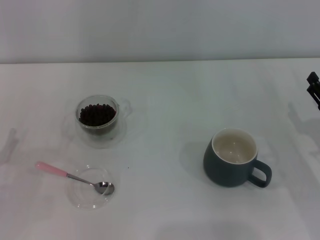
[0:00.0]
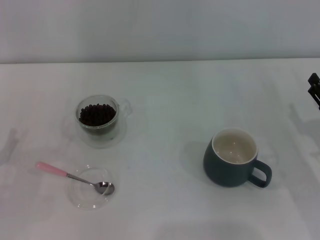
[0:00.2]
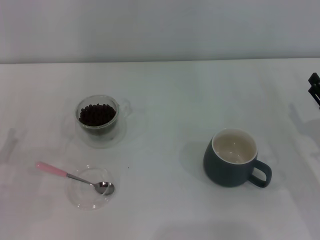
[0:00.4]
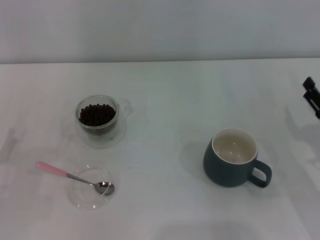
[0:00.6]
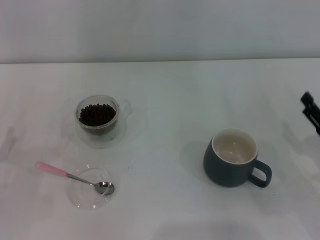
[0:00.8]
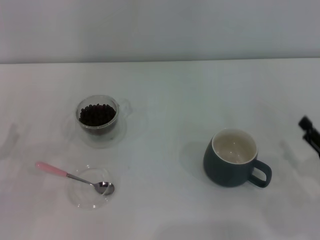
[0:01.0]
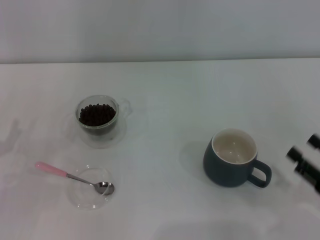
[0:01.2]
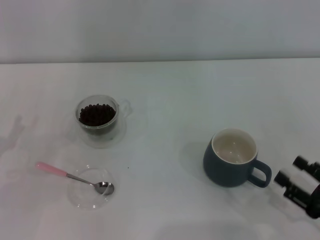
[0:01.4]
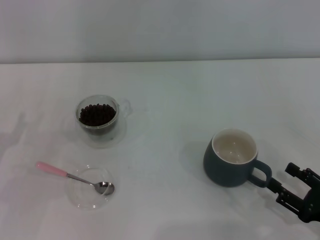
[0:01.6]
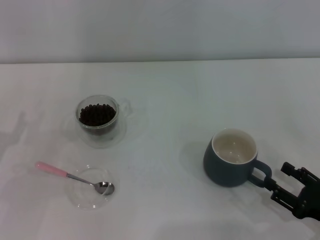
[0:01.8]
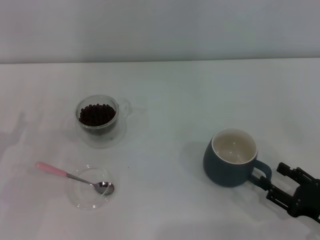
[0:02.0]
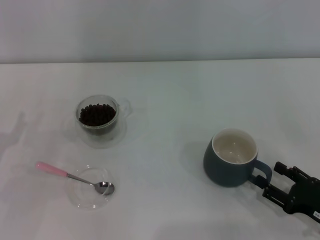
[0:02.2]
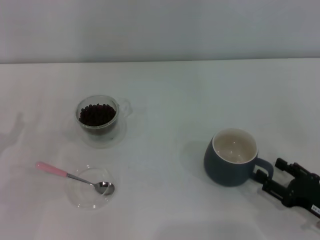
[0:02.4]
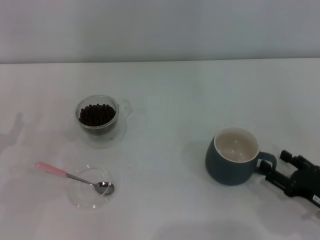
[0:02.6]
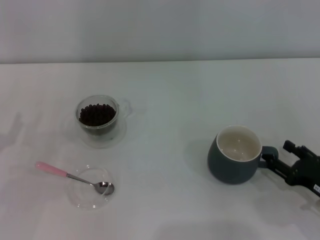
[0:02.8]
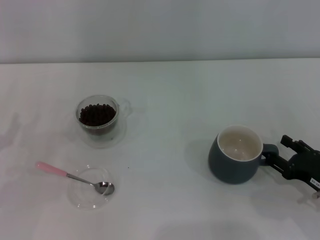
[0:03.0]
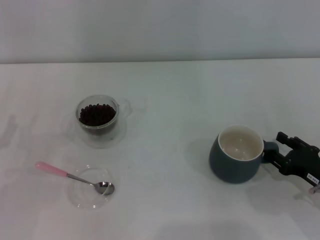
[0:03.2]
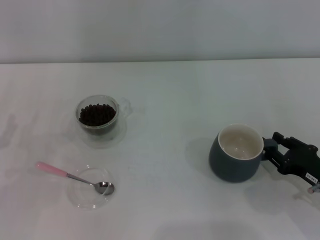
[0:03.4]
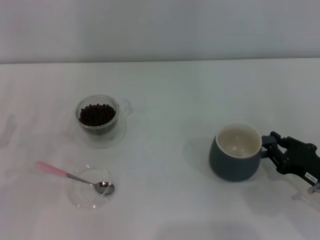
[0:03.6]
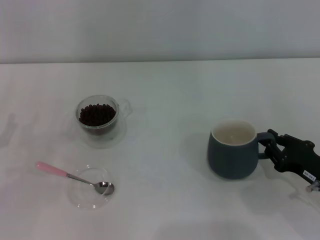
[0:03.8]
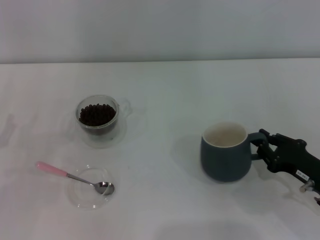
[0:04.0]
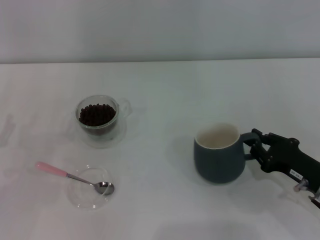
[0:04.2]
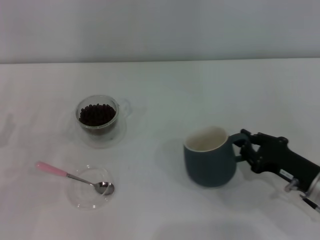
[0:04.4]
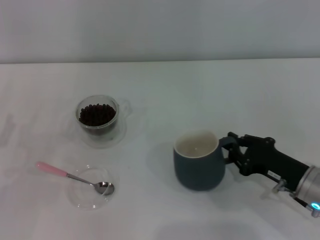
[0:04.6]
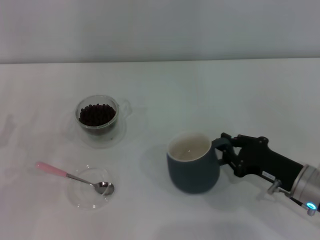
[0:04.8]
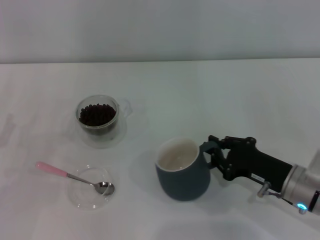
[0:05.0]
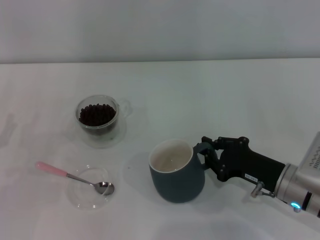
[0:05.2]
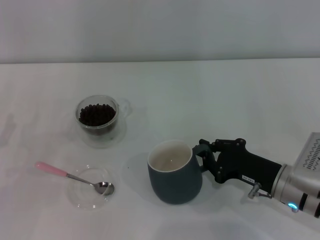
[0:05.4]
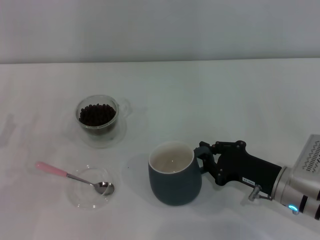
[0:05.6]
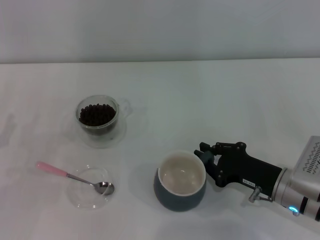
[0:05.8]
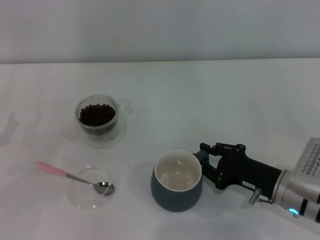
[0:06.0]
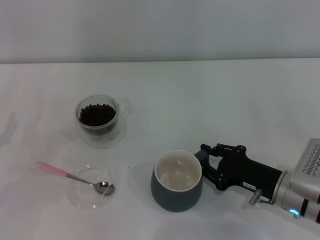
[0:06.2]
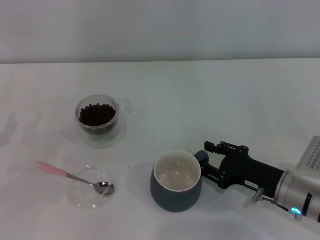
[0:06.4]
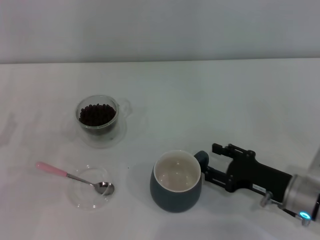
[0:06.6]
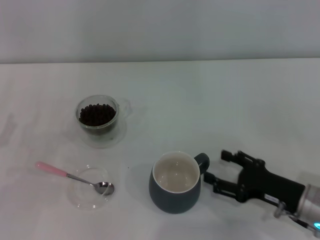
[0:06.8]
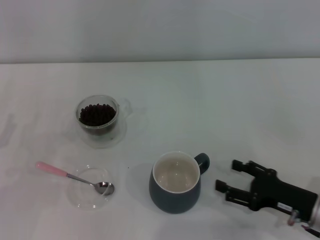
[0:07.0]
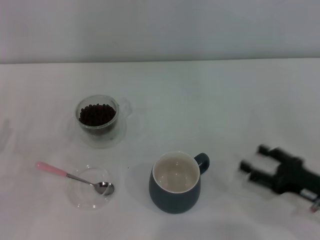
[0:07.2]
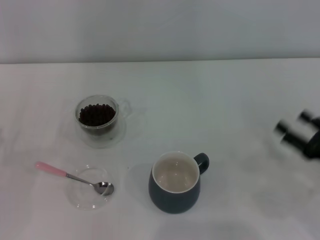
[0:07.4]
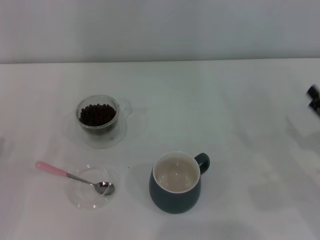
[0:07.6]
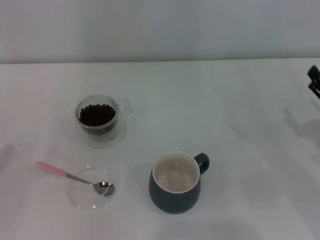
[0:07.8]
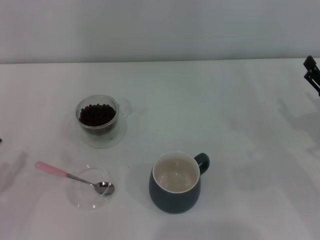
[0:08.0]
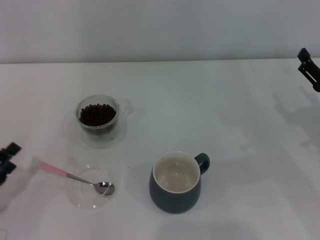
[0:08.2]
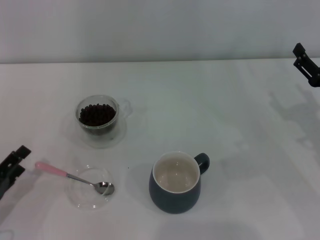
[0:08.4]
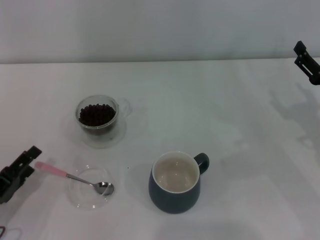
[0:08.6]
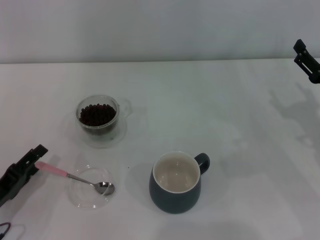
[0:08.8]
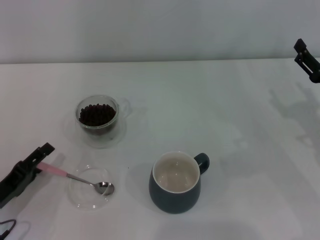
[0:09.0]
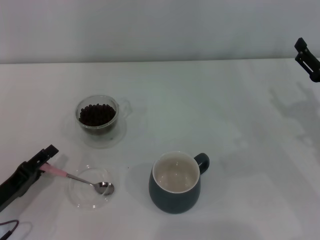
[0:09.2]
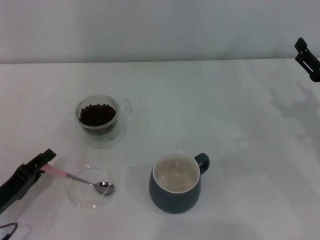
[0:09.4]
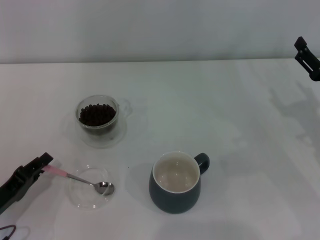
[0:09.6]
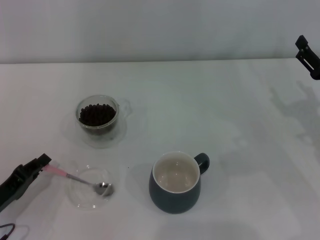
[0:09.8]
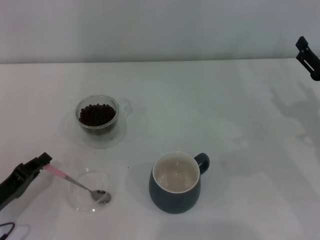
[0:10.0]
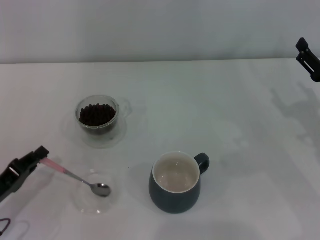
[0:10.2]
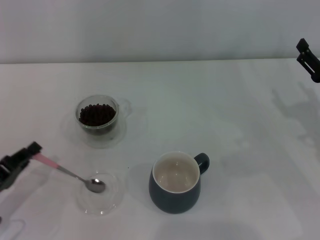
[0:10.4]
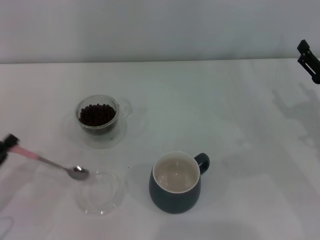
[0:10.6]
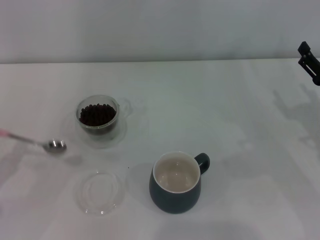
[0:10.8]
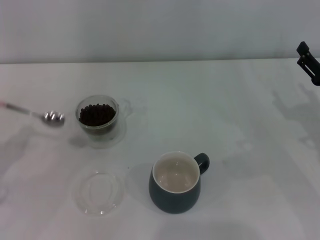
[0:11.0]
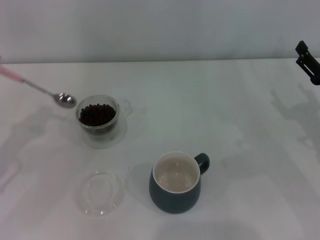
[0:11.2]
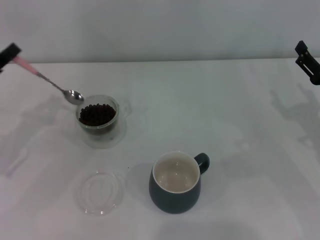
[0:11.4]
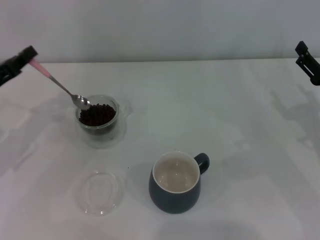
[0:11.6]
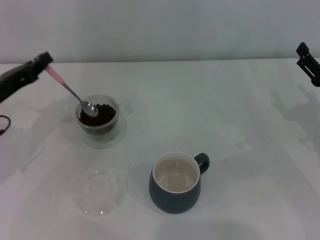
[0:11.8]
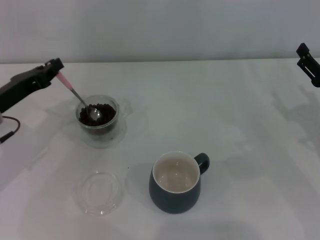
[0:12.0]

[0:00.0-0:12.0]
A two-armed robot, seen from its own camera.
Task of the whole recording: Use a pink spoon to take out the coffee beans from the glass and pour them into the gray cup.
Step, 0:00.0 to 0:06.8: Move the cup to the center of view with the left gripper.
Step, 0:07.2 to 0:10.4: Pick up the spoon with the right gripper.
0:00.0 to 0:01.6: The right gripper moves backward, approximately 10 cm.
0:01.6 to 0:03.0: The right gripper travels forward by about 5 cm.
0:03.0 to 0:04.4: The right gripper closes.
0:04.4 to 0:06.0: The right gripper shifts by about 5 cm.
0:06.0 to 0:07.6: The right gripper is displaced to the right by about 10 cm, and opens up. Meanwhile the left gripper shifts by some 5 cm.
0:07.6 to 0:09.0: The right gripper shifts some 5 cm forward, while the left gripper travels to the right by roughly 5 cm.
0:09.0 to 0:10.4: The left gripper closes up.
0:10.4 to 0:12.0: The left gripper is displaced forward and upward by approximately 15 cm.

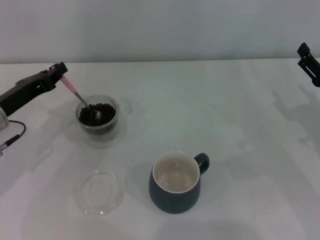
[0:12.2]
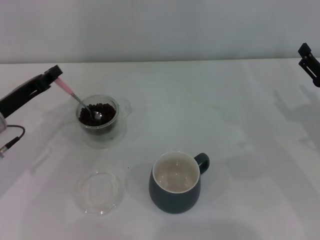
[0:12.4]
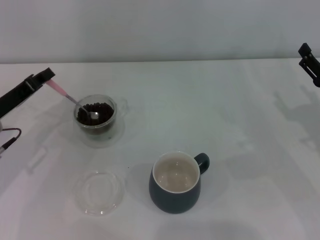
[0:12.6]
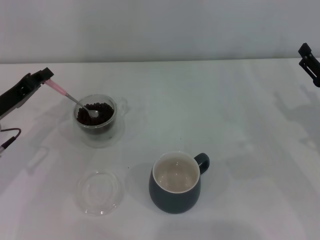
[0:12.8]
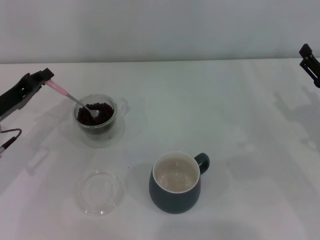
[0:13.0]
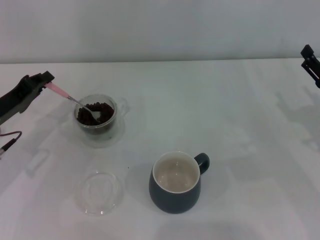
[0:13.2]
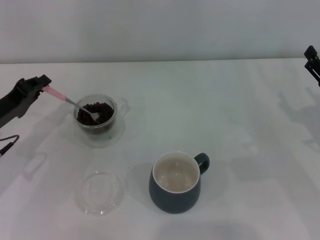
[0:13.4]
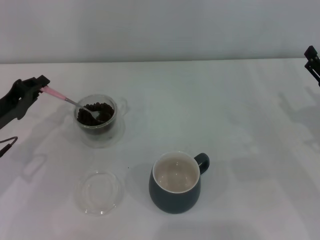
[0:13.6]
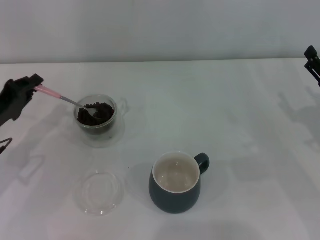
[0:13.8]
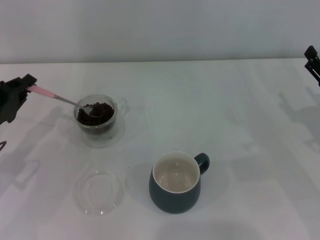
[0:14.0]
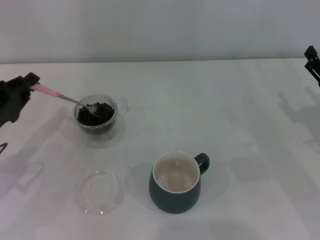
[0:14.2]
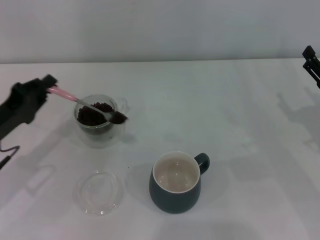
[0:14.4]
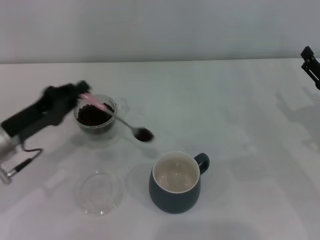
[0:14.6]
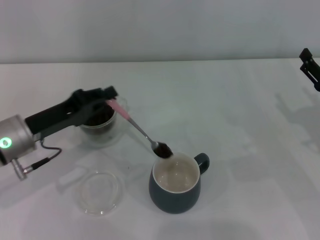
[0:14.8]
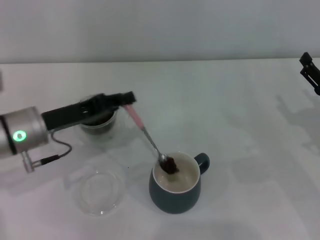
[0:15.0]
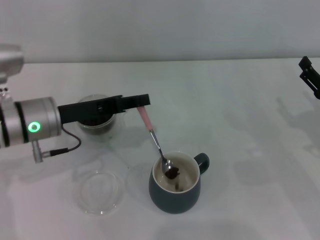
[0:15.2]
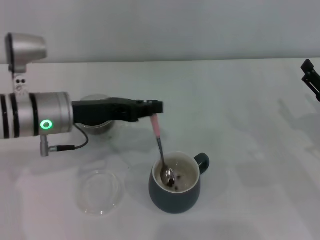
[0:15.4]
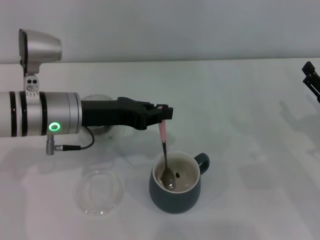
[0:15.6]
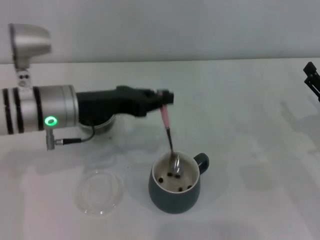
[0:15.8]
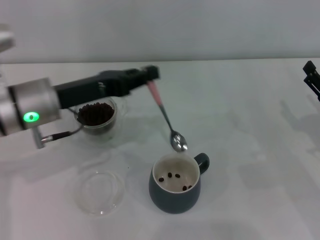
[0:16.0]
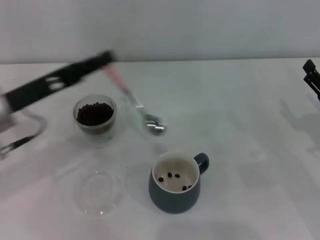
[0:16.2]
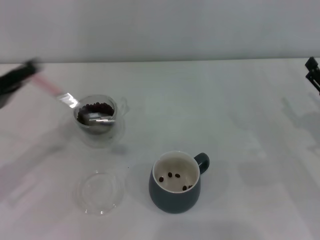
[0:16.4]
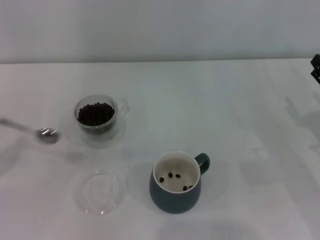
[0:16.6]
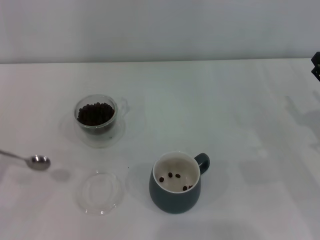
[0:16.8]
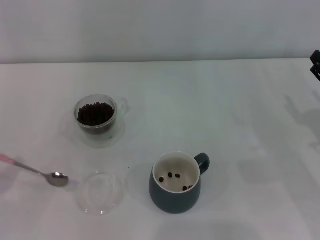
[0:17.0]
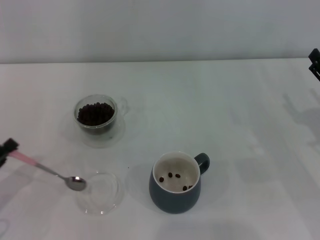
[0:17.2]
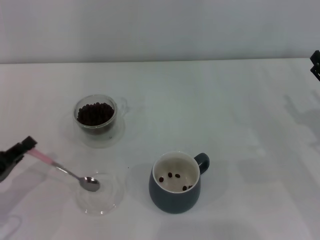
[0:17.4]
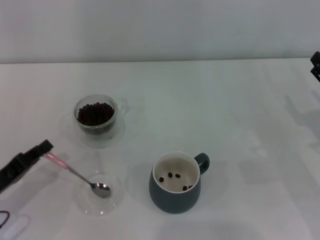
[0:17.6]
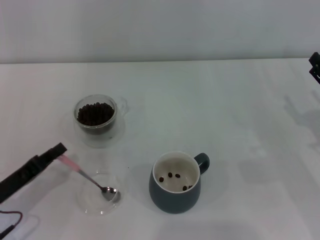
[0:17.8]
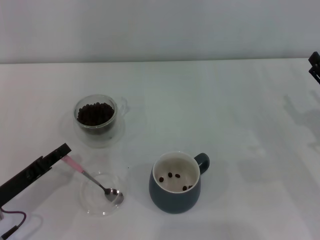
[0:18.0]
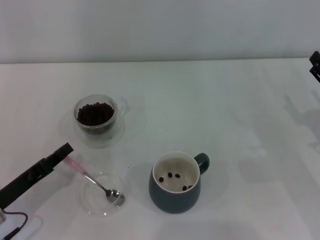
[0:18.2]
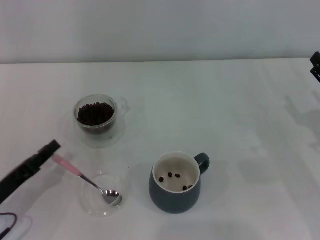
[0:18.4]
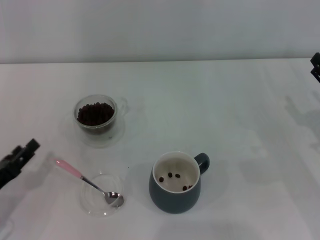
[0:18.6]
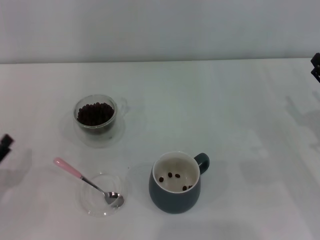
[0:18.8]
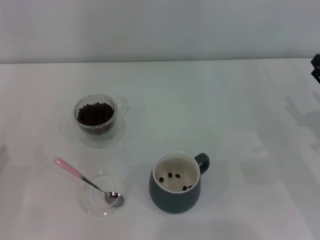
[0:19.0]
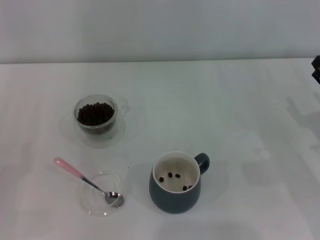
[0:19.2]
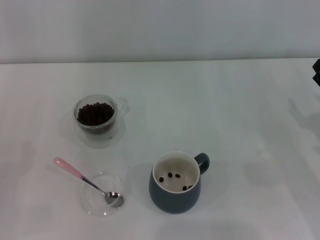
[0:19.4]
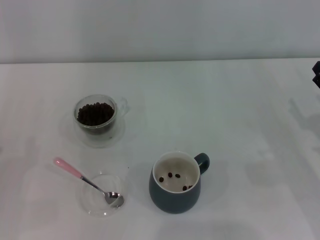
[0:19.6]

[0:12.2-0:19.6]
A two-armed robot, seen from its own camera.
Task of the whole recording: Use a pink spoon to take out the coffee beans from the glass and pour them into the gray cup.
0:13.6 to 0:15.2: The left gripper goes approximately 10 cm to the right.
0:15.2 to 0:16.6: The left gripper travels to the left and backward by some 20 cm.
0:16.6 to 0:18.2: The left gripper shifts roughly 10 cm to the right and downward.
0:18.2 to 0:19.6: The left gripper goes some 5 cm to the left, and opens up.

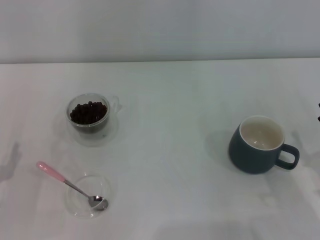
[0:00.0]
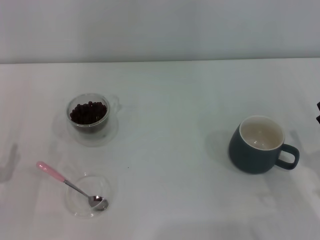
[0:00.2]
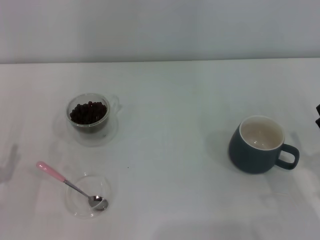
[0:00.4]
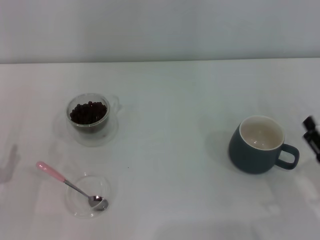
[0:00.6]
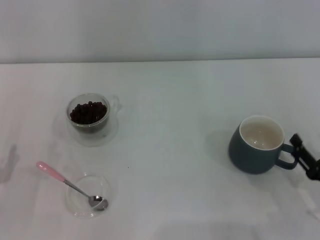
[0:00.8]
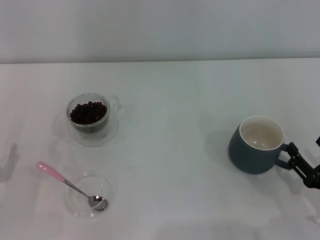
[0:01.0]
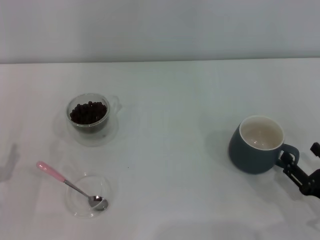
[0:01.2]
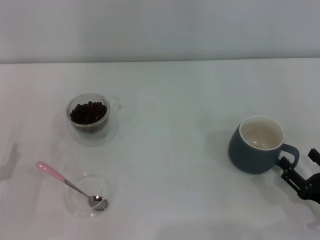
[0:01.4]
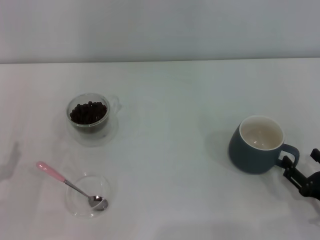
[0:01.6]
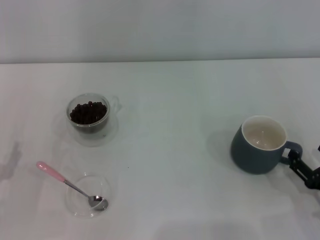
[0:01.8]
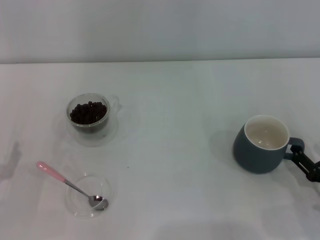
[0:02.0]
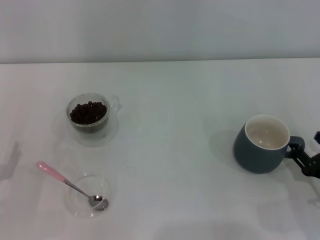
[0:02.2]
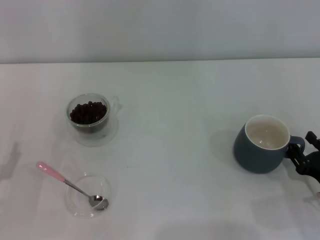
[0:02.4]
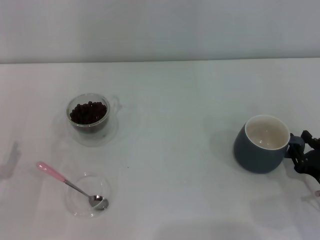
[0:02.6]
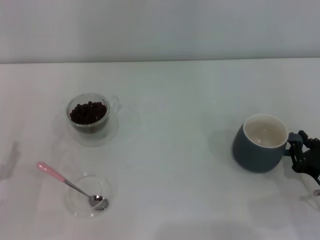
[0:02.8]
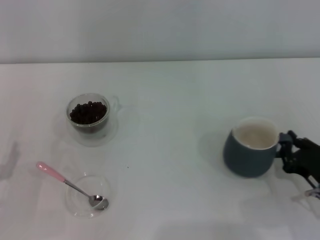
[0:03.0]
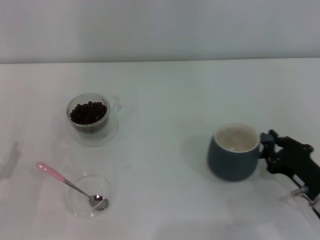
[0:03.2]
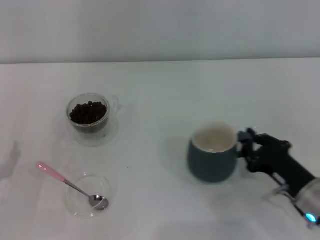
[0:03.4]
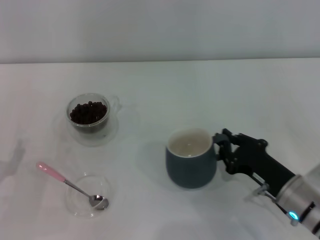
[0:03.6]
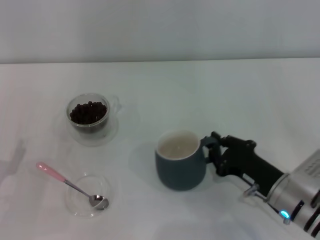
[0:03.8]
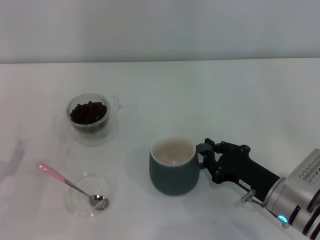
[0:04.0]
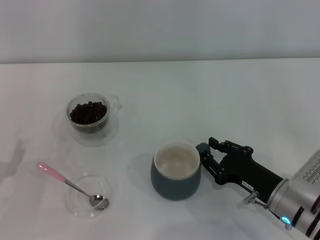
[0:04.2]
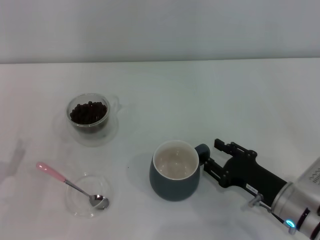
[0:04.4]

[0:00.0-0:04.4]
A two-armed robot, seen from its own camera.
Task of the whole recording: Use a pink spoon to take out the coffee beans from the glass and pour them into the gray cup.
0:01.4 to 0:03.0: The right gripper shifts by some 5 cm, and closes its fingers.
0:03.0 to 0:04.4: The right gripper moves to the left, roughly 5 cm.
